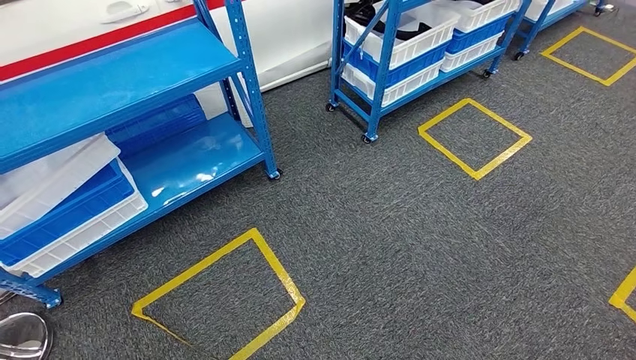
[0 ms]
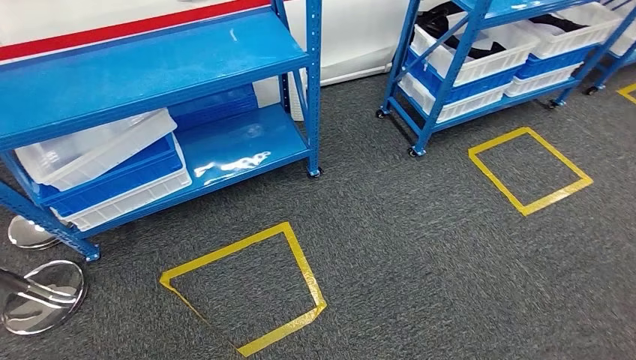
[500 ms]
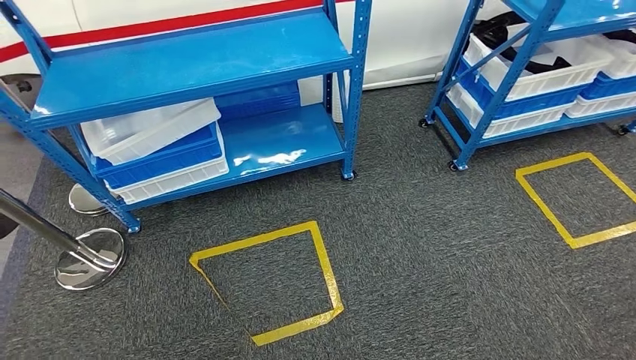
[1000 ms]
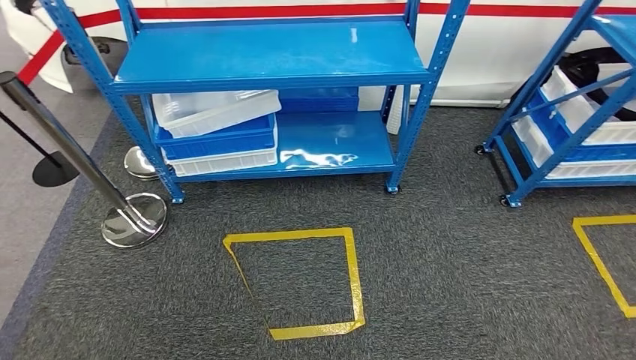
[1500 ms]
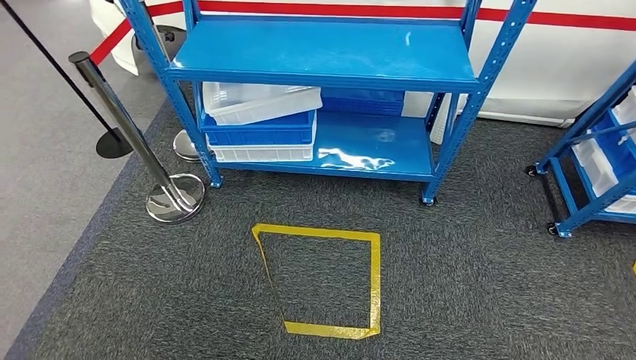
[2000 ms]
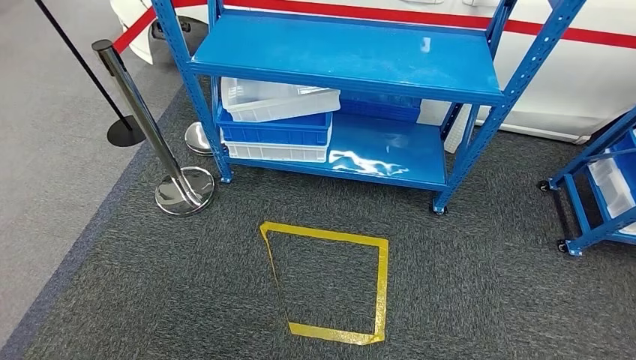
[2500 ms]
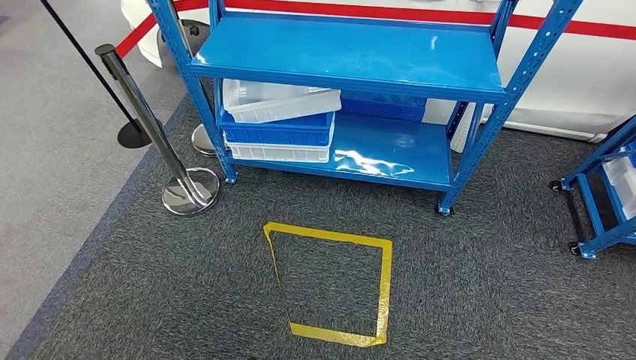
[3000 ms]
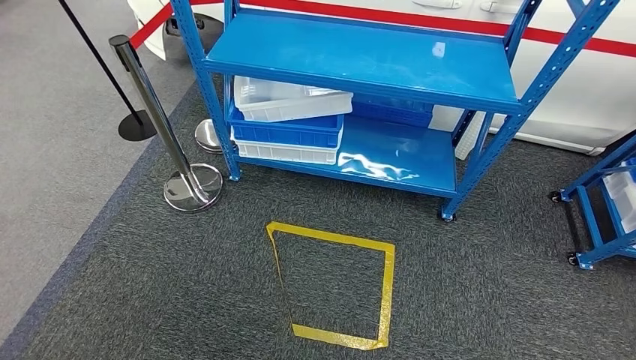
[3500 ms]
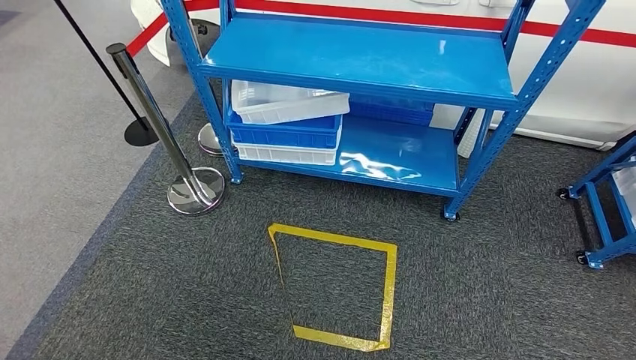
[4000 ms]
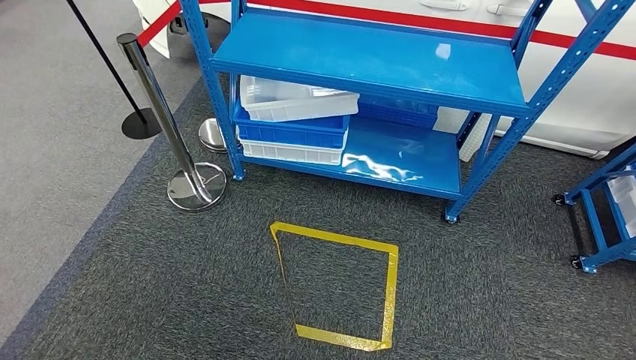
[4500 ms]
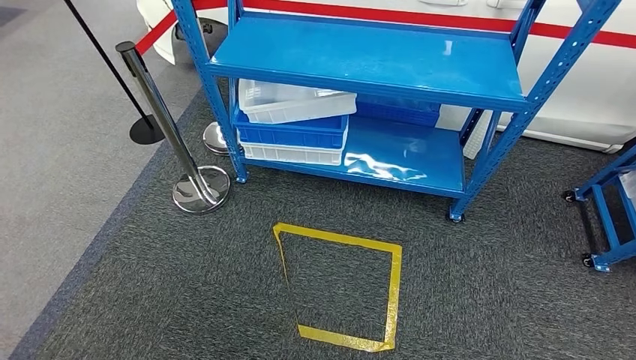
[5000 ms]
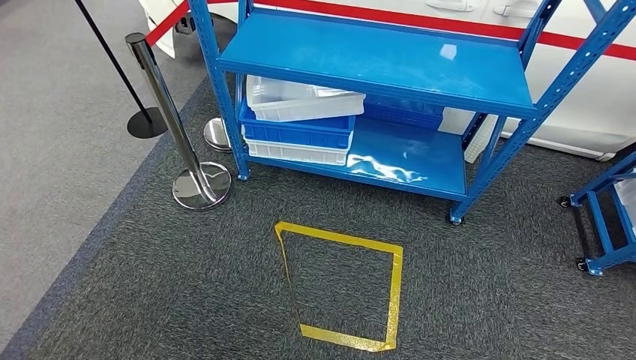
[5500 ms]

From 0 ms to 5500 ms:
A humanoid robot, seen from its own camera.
Step, from 0 ms to 5500 ms: Return to the initial position at the shelf.
From 3500 ms to 5500 ms: The two hands keep their place.
